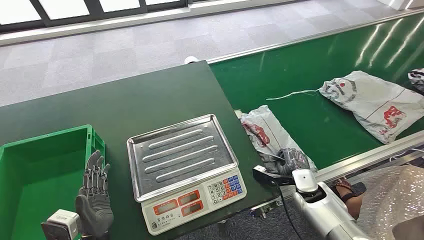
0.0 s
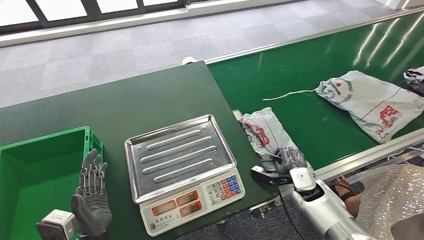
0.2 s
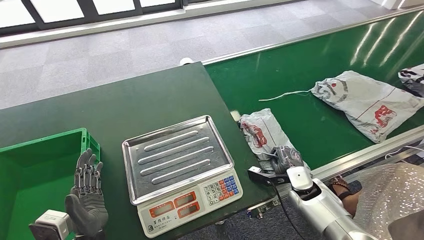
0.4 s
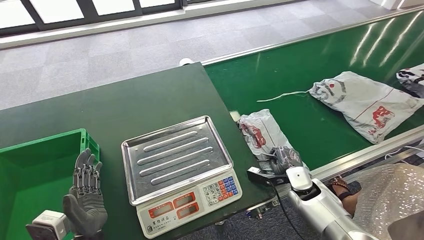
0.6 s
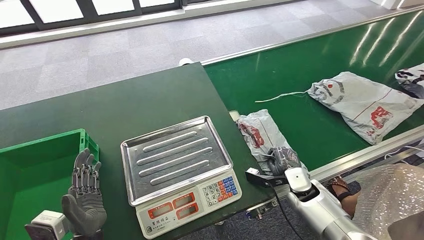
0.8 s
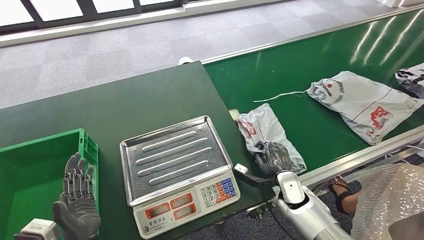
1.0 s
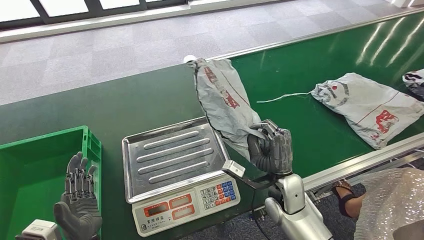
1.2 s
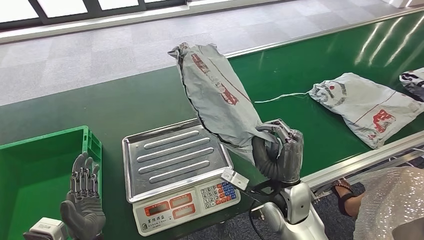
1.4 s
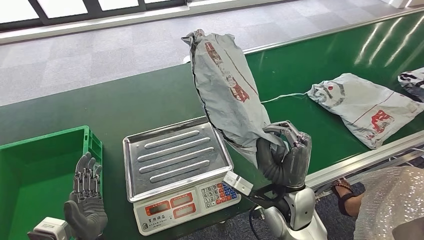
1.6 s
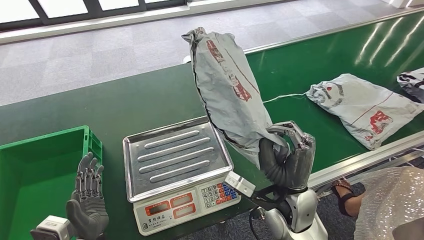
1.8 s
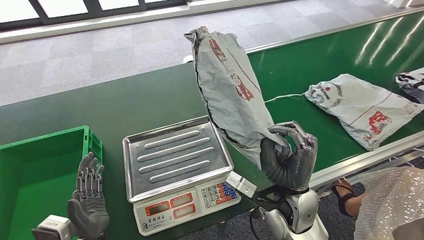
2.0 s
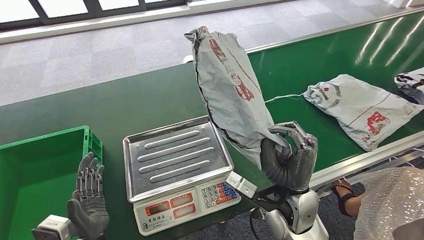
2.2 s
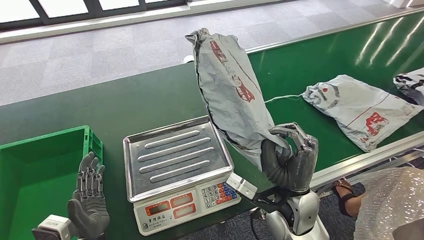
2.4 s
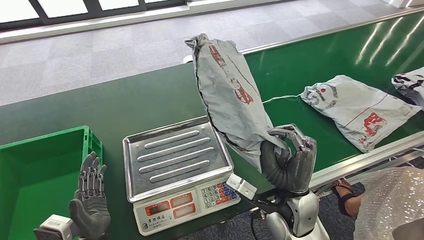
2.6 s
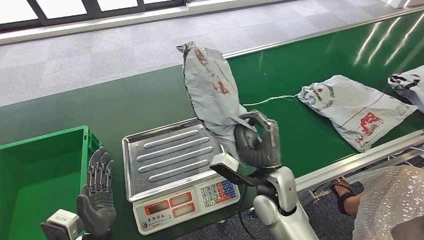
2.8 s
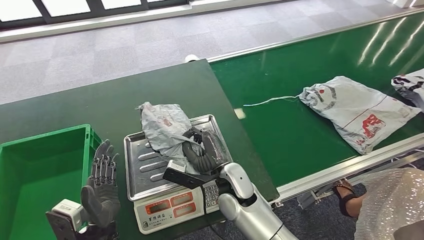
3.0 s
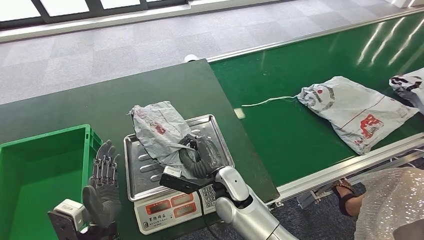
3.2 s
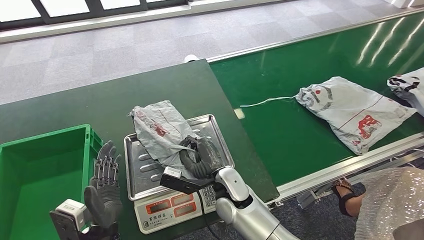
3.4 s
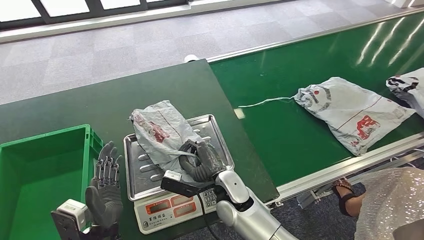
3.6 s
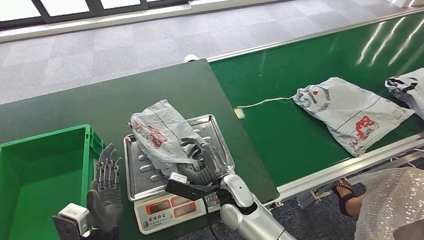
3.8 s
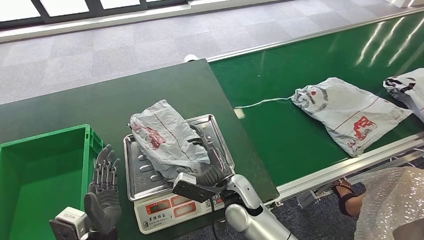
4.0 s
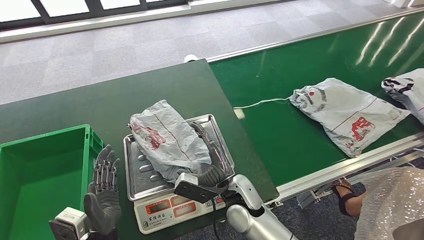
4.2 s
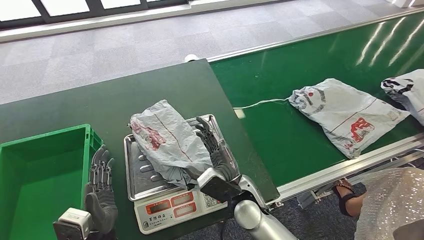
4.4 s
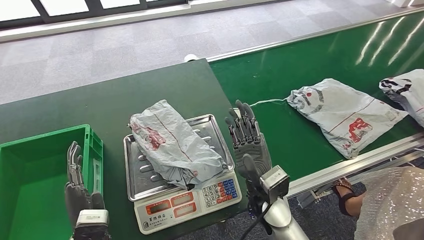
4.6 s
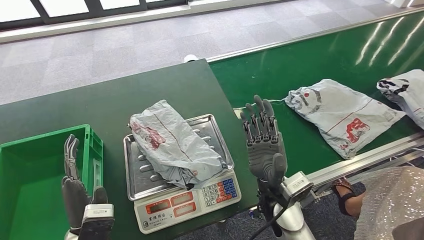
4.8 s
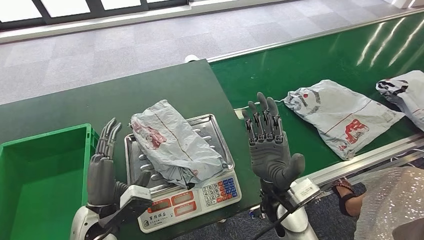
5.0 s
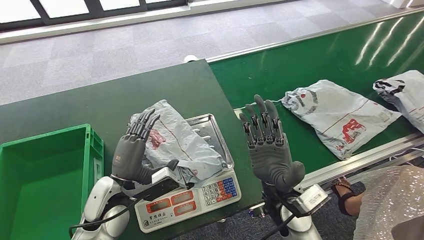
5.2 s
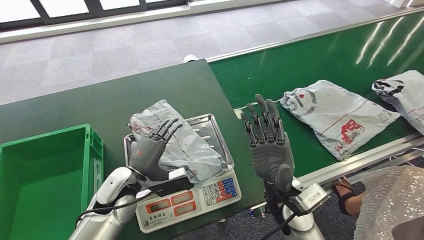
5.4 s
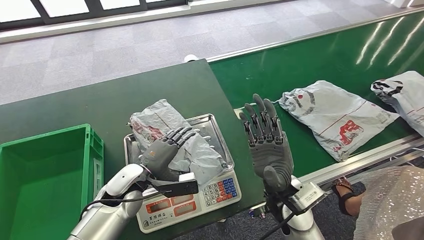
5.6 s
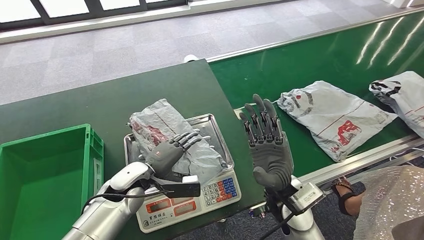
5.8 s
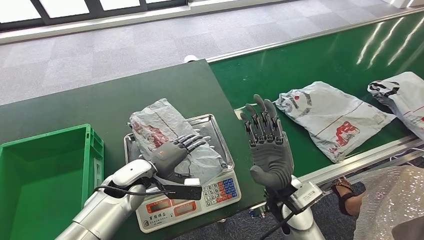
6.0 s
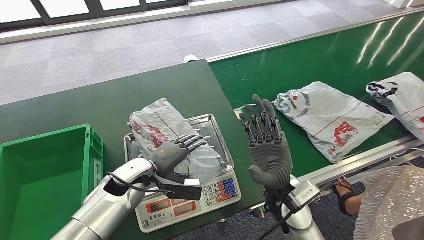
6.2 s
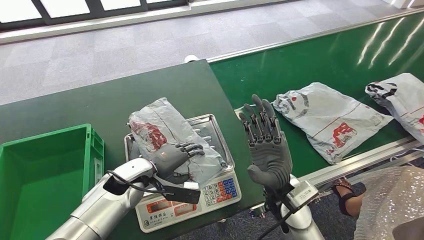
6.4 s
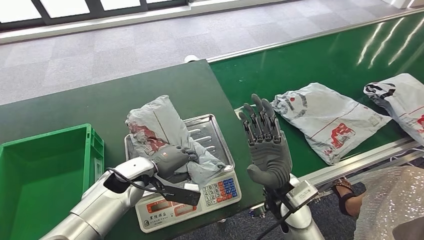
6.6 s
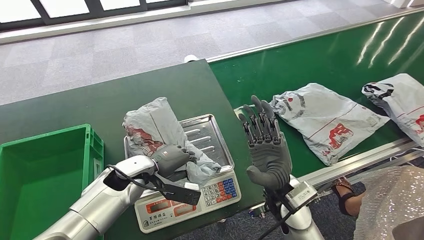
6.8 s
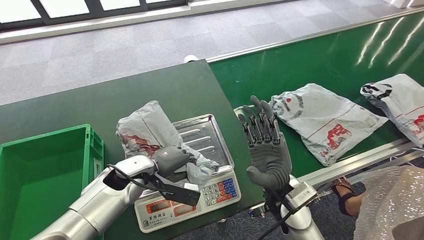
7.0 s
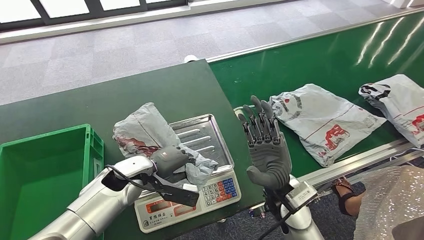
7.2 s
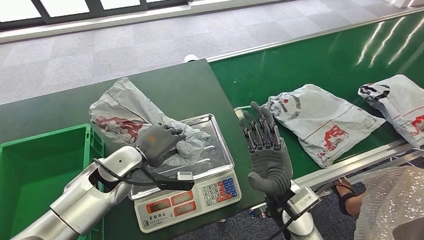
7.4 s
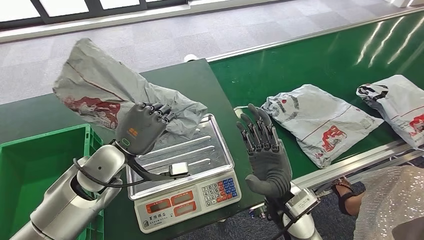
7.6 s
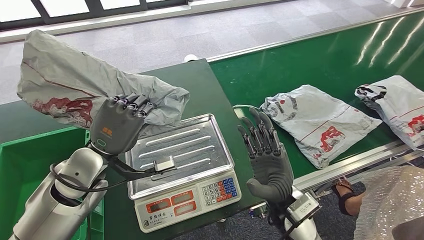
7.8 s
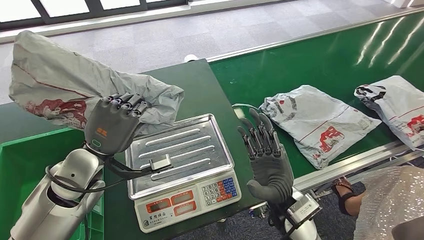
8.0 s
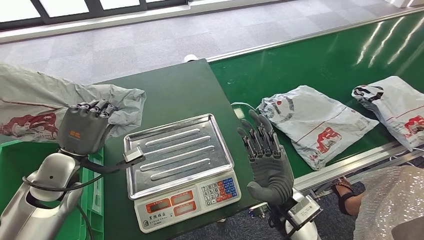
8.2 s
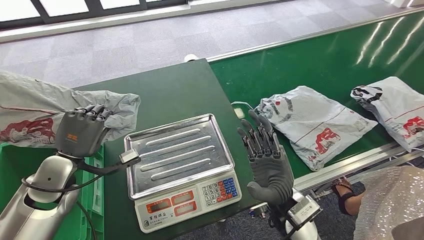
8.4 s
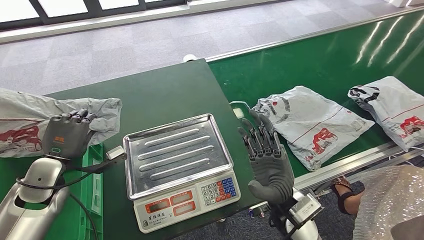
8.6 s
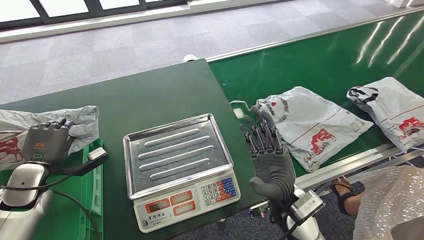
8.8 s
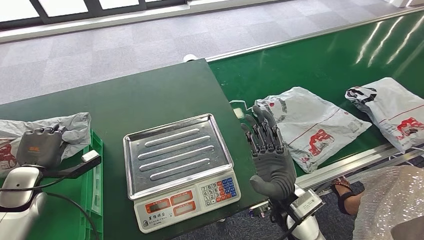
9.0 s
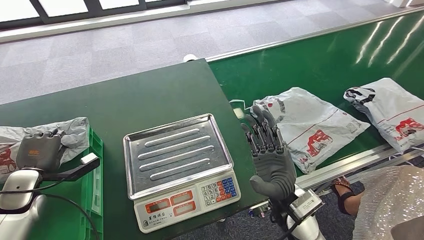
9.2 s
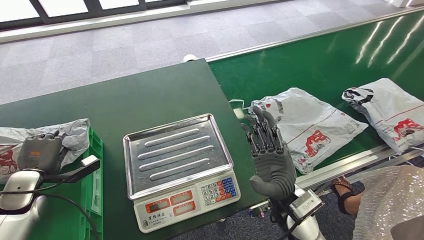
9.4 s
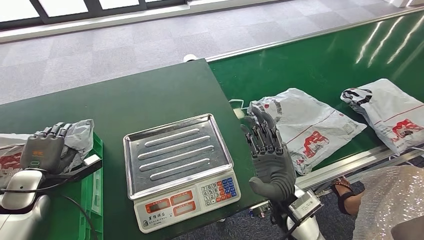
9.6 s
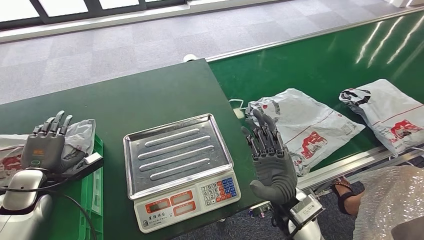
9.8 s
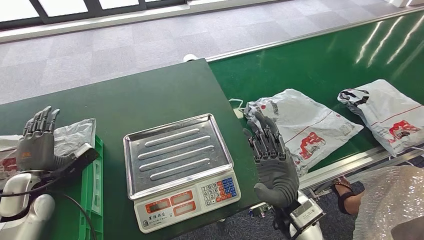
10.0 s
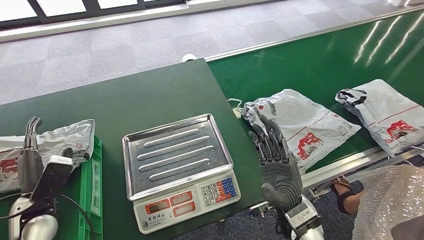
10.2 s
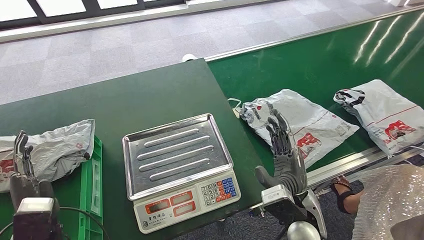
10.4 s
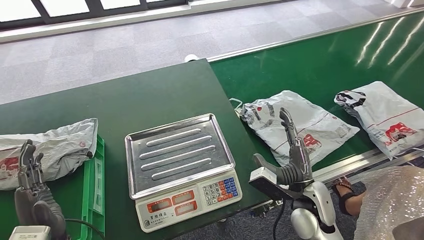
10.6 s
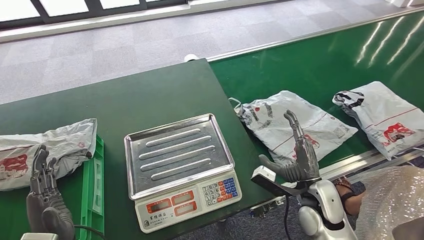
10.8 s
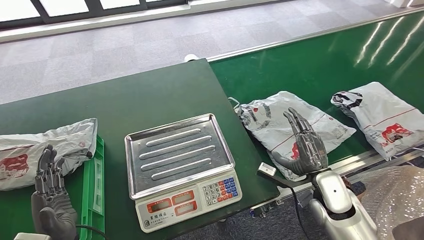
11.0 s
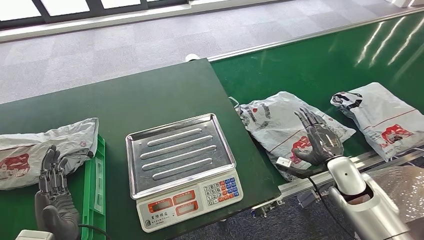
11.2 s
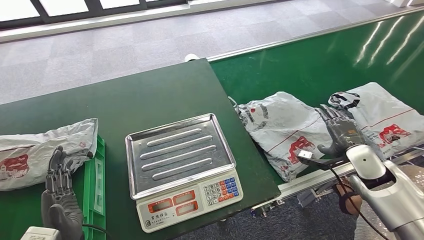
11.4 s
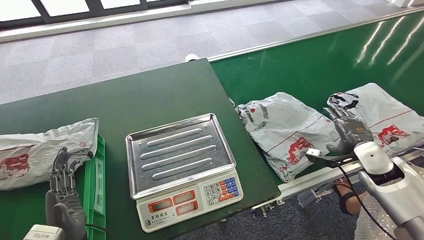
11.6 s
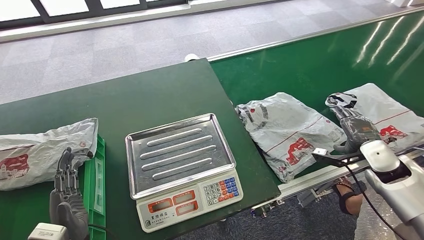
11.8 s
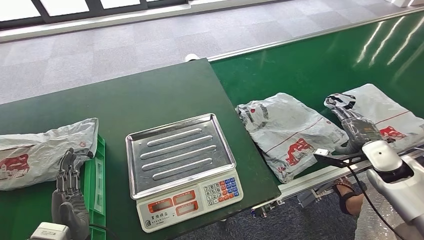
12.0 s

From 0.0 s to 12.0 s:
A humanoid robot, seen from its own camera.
Step, from 0.0 s to 1.6 s: Take the parcel off the conveyor belt.
Step, from 1.8 s to 4.4 s: Place the parcel onto the inbound machine.
Step, from 4.6 s to 8.0 s: Pick up the parcel from the inbound machine.
Step, from 8.2 s to 11.0 s: Put the parcel inside the courier box.

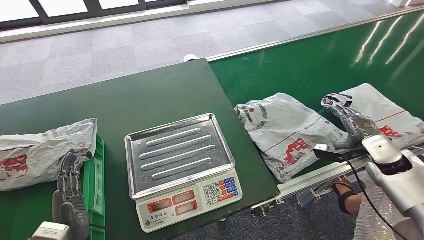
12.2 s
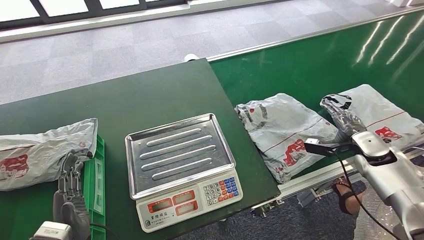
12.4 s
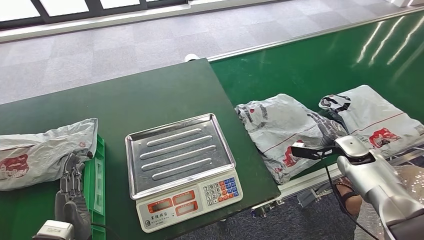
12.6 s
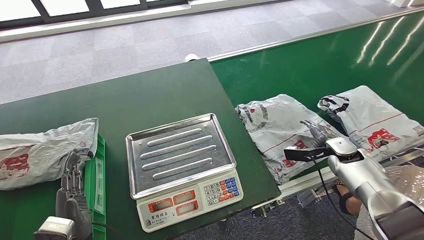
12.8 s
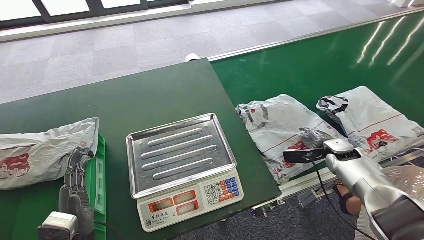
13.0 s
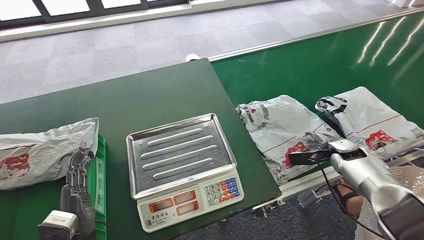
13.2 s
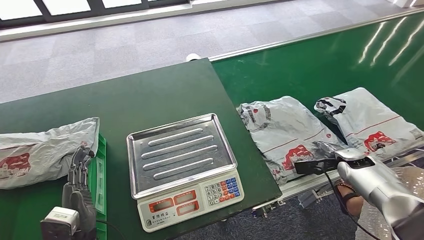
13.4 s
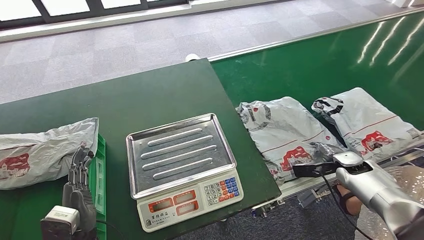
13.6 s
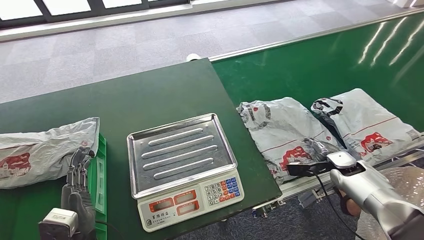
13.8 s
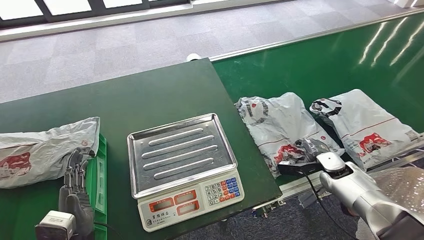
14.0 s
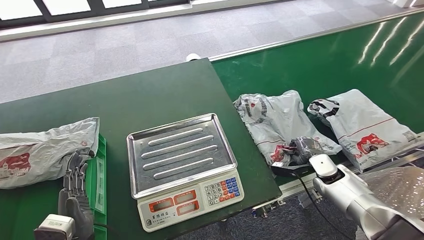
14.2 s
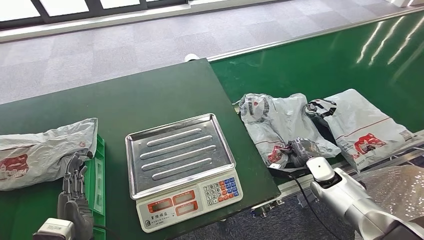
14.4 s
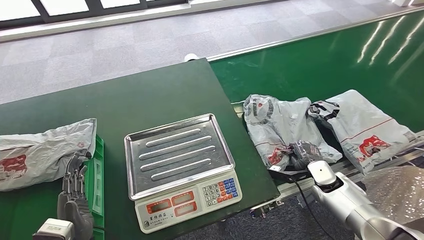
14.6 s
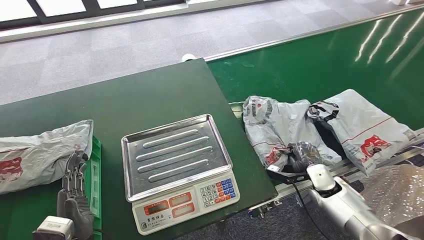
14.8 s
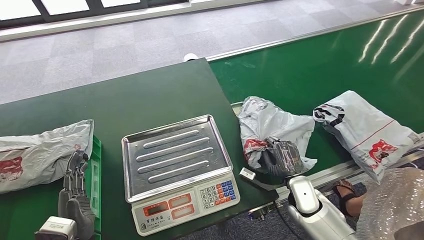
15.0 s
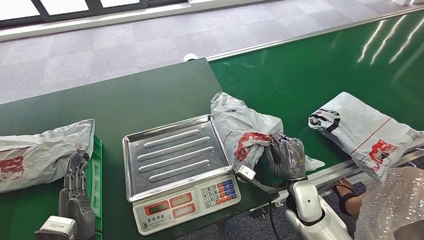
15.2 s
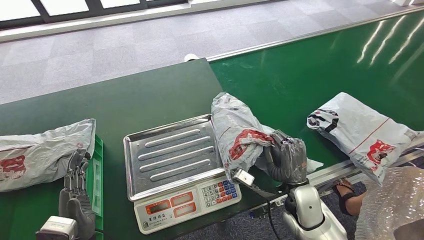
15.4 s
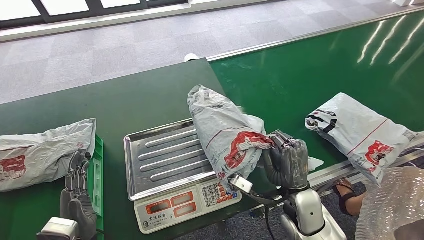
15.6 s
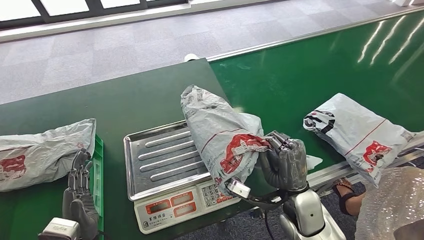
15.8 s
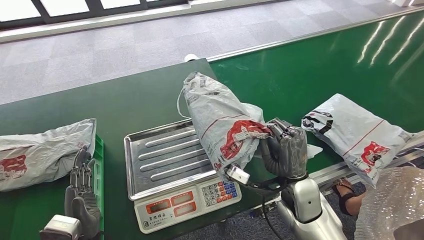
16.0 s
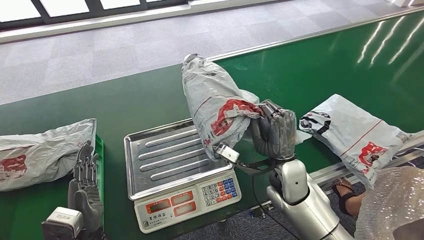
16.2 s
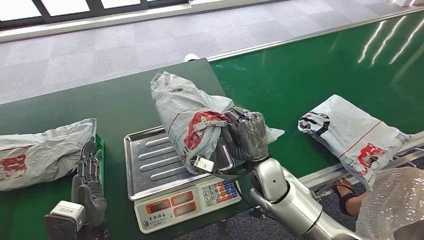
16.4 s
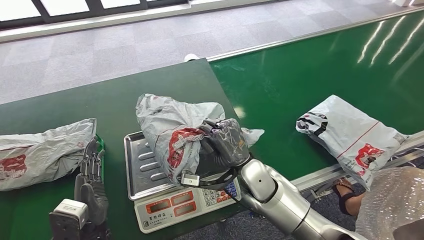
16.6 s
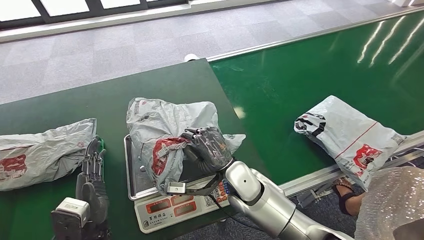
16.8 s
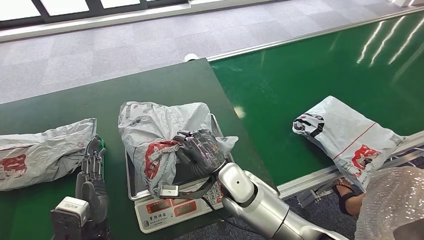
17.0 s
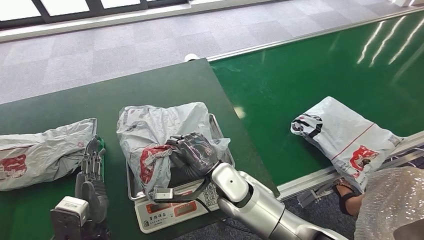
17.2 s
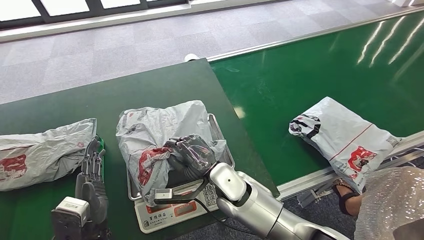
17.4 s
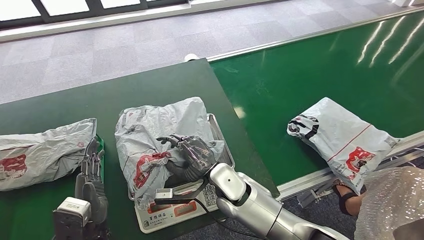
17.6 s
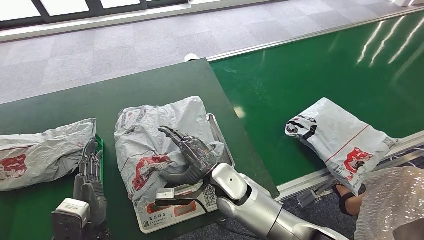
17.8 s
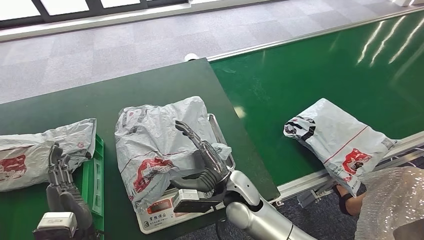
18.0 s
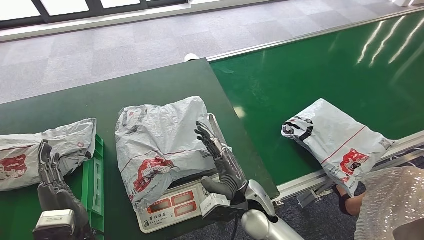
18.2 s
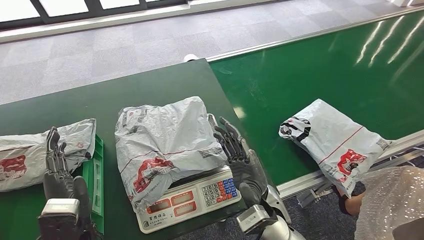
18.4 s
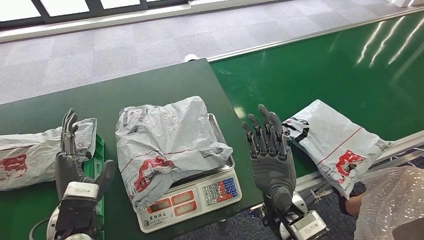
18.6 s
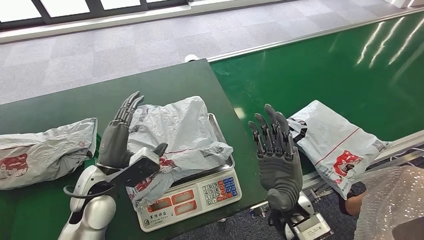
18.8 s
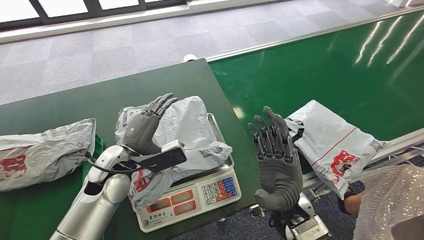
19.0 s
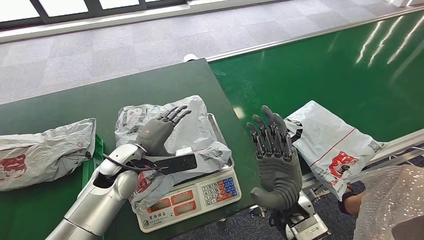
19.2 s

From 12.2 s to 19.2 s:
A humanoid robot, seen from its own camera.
Step, from 12.2 s to 15.4 s: Pick up the parcel from the conveyor belt.
Step, from 15.6 s to 18.6 s: Place the parcel onto the inbound machine.
From 12.2 s to 13.6 s: The right hand moves downward, roughly 10 cm.
